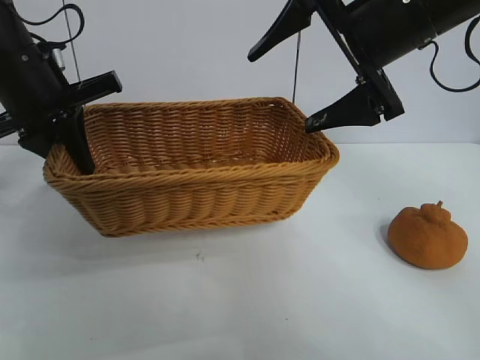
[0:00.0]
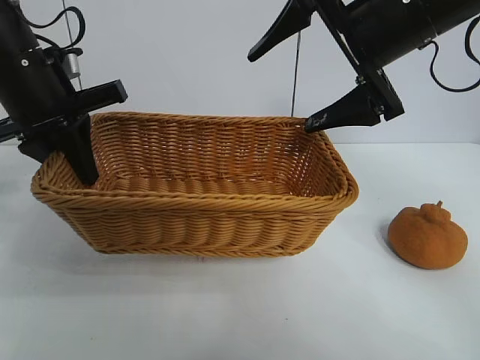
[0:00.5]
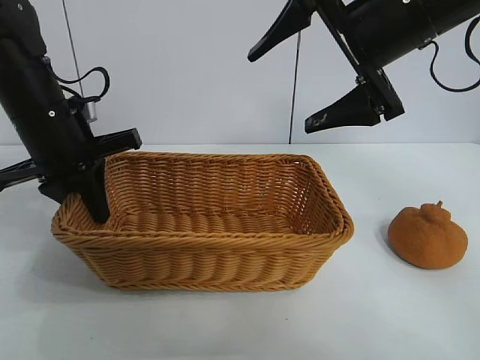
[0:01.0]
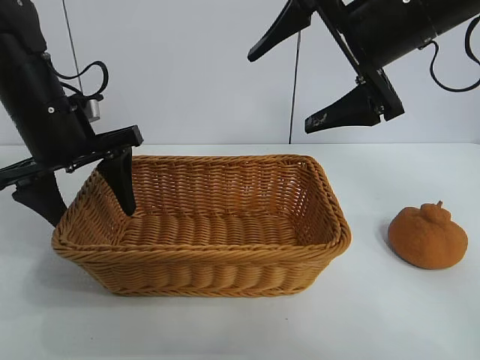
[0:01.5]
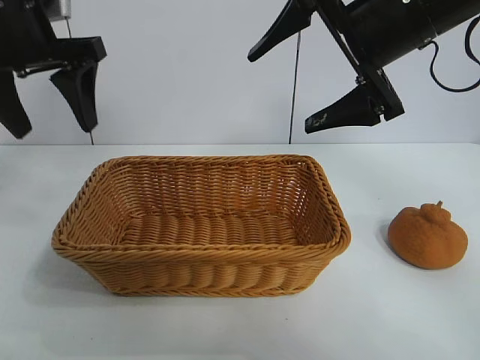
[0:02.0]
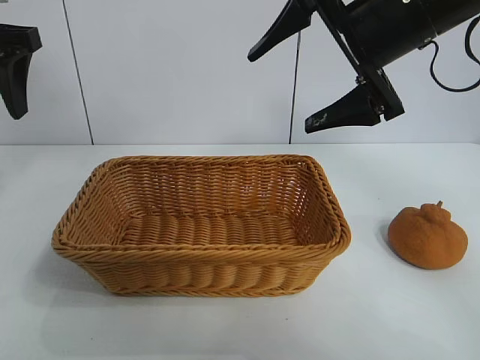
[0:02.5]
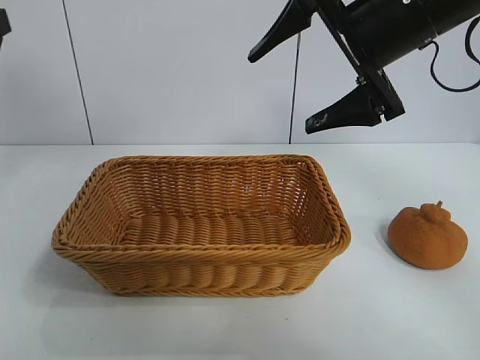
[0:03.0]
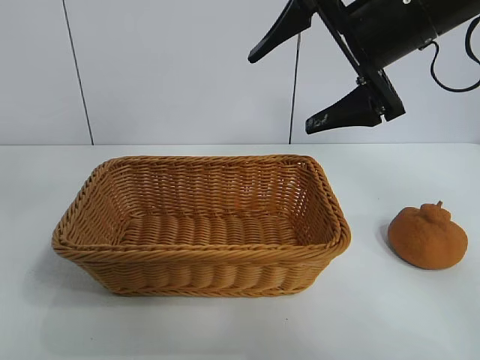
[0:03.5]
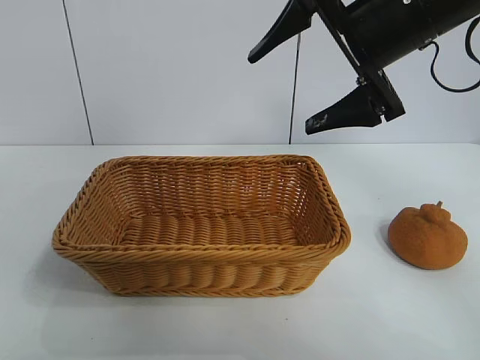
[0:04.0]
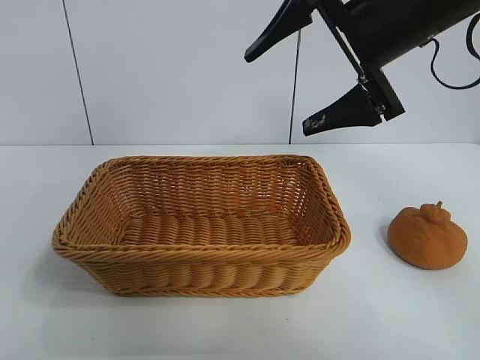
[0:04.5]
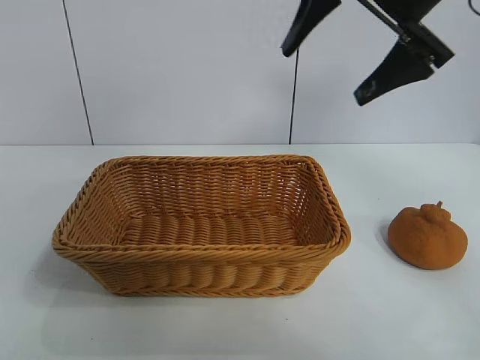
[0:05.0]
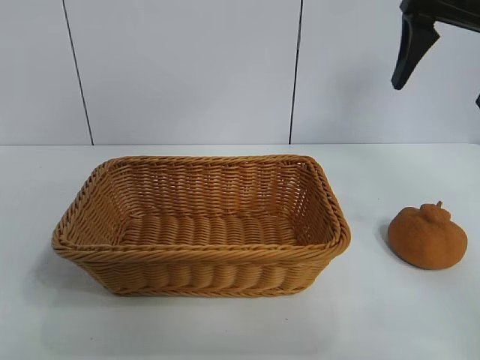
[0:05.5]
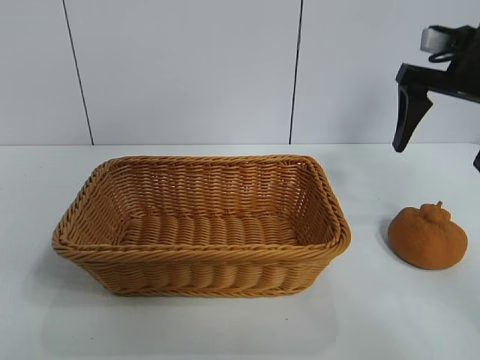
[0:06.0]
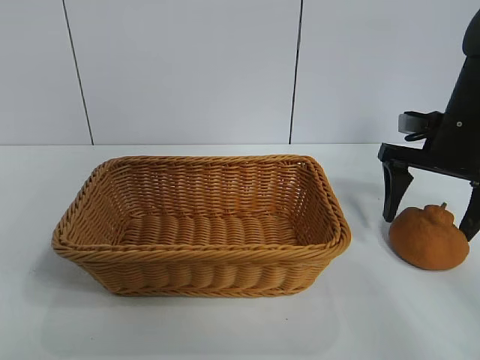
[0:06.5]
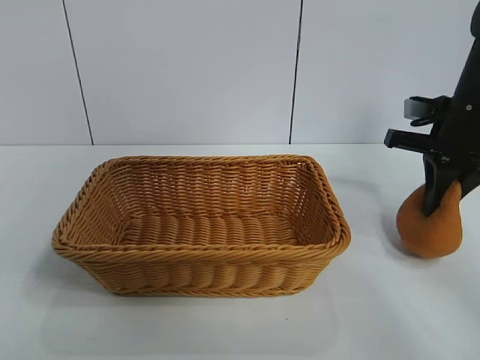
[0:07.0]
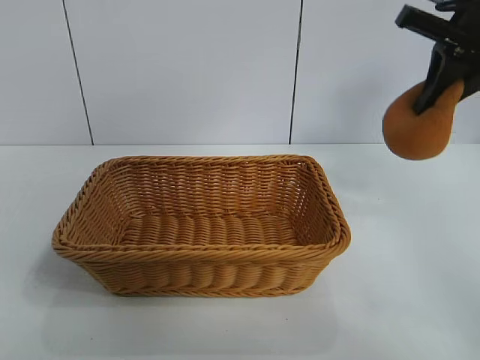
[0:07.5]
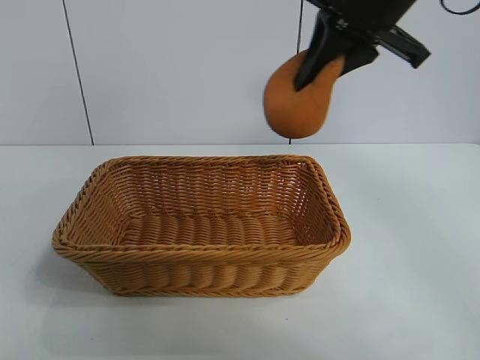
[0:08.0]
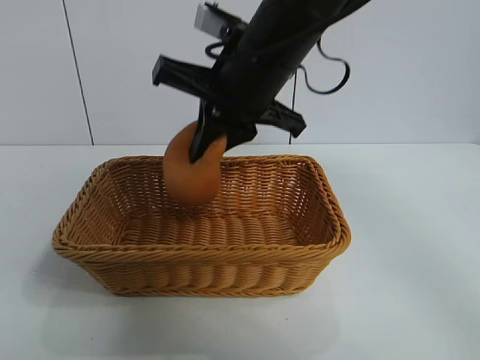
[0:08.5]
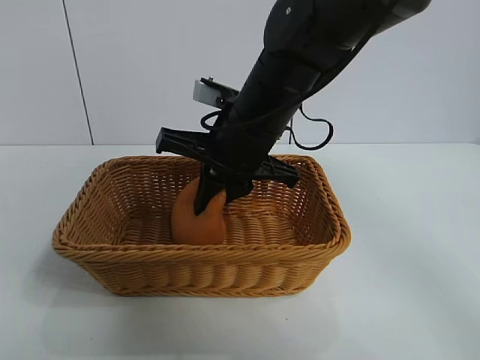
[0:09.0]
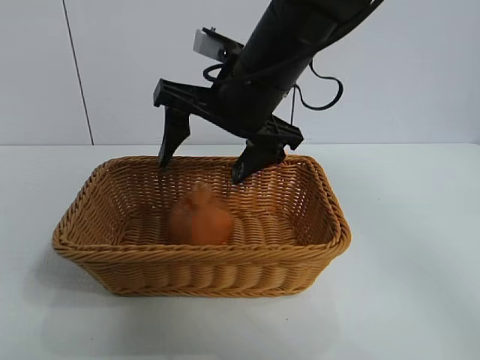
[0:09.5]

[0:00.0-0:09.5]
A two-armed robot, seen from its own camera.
Task of the whole recording: pick up the orange and put it into the basket.
Step, 0:00.0 to 0:01.5: Place the basket in the center of view with left gripper.
Step, 0:02.0 to 0:07.0: Grasp the orange with right gripper.
Step, 0:07.5 to 0:09.0: Place the orange in the basket with right gripper.
